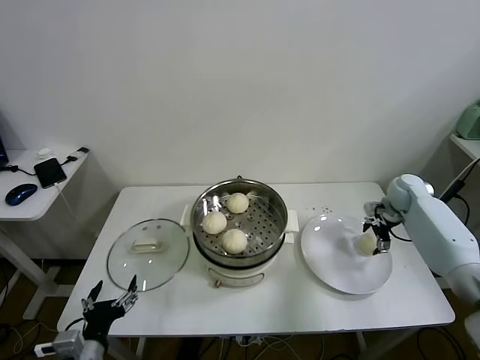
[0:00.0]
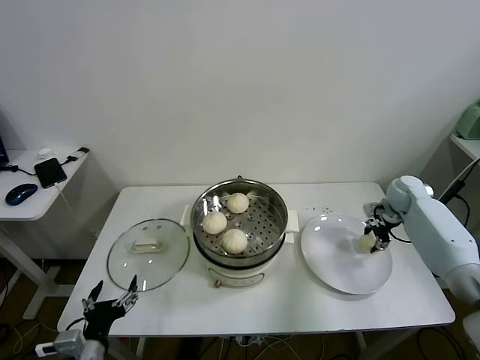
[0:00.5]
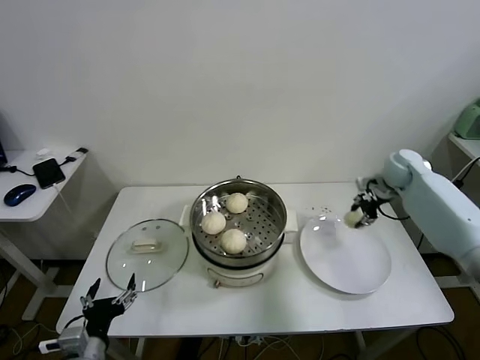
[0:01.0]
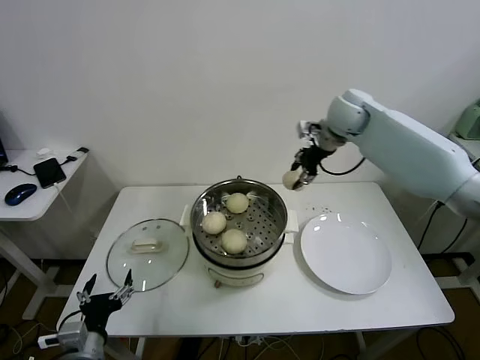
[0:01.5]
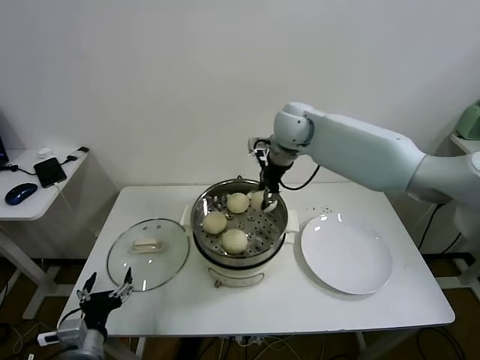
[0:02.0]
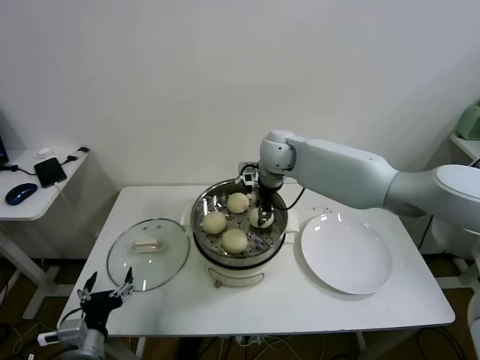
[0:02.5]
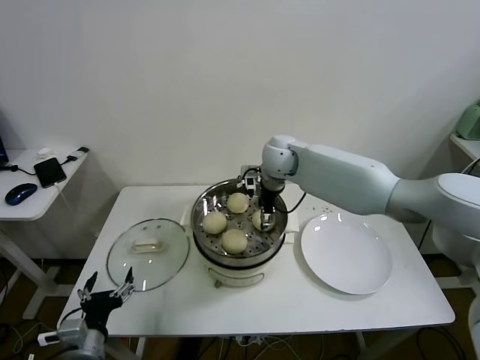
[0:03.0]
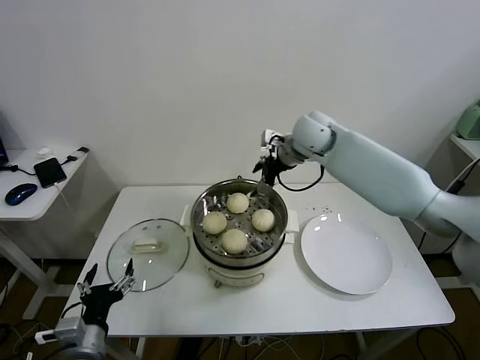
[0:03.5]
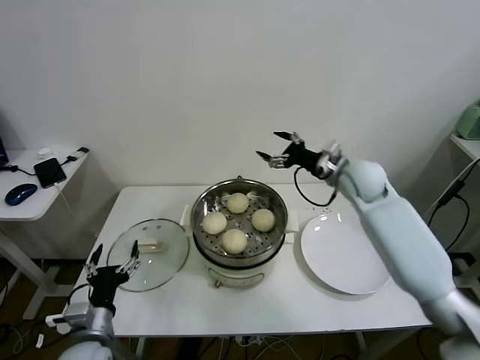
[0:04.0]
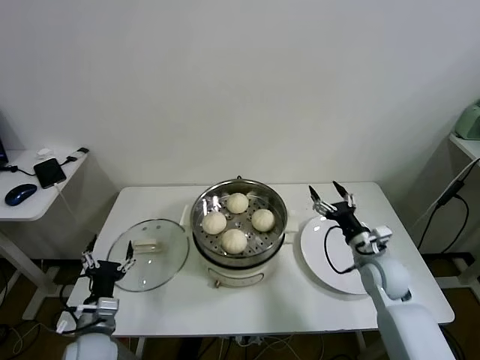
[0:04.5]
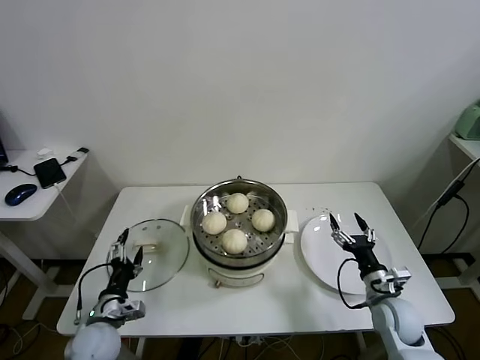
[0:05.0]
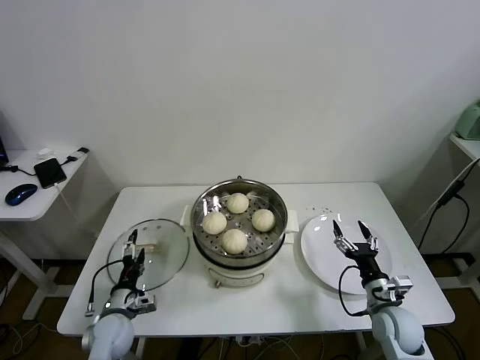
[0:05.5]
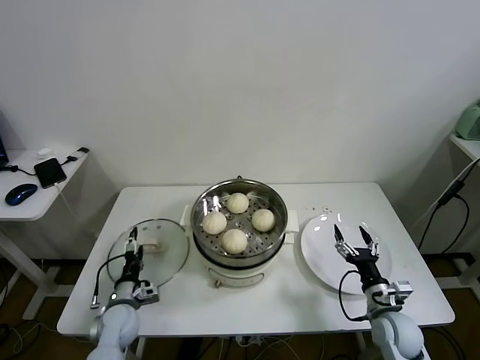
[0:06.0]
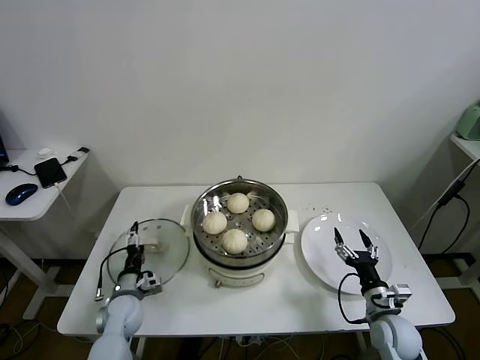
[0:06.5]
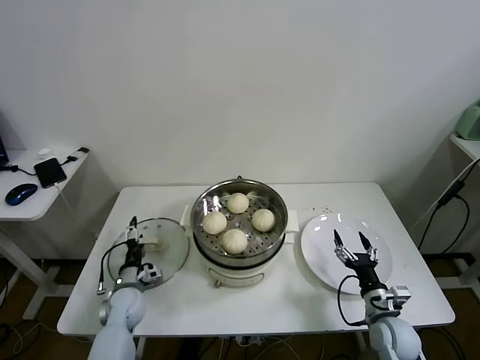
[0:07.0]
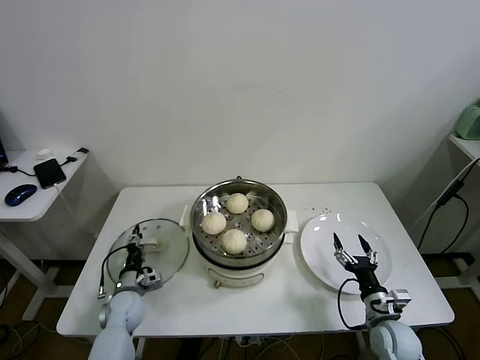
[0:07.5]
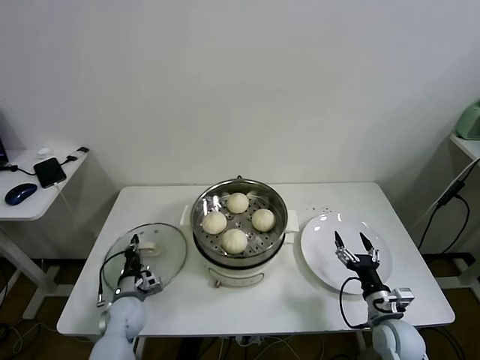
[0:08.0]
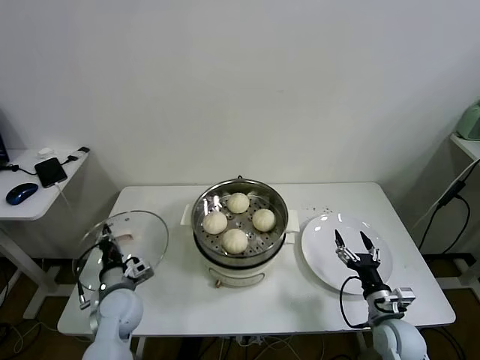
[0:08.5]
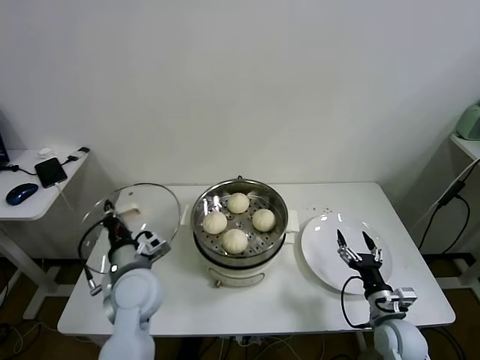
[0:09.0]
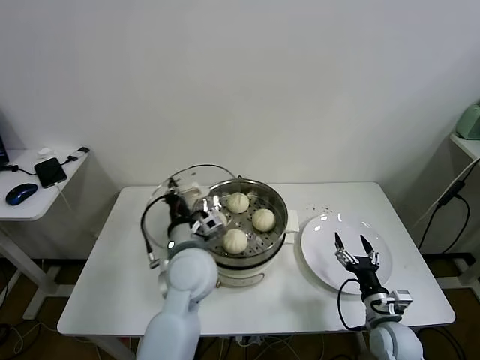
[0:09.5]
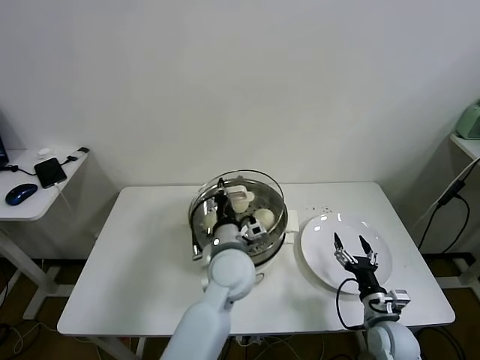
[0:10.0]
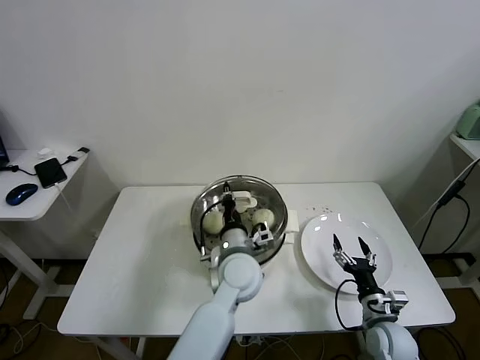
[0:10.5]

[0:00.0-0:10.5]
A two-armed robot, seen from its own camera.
Task of the whole recording: take steamed baozi put them in steamer.
Step, 0:00.5 to 0:03.0: Place the baozi on the steamer with right gripper.
Step, 0:03.5 to 0:07.5: Grasp the pot lid with left gripper.
0:00.0 to 0:02.0: The right gripper travels to the left and upward by roughly 40 cm, and closes.
0:02.0 to 0:04.0: The right gripper is displaced to the right, downward and backward by about 20 cm, and opens its fingers.
0:04.0 to 0:06.5: The right gripper travels downward and backward by about 35 cm; the left gripper heads forward and downward, covering approximately 20 cm.
0:06.5 to 0:08.5: The left gripper heads upward, covering about 5 cm, and closes.
0:08.5 to 0:10.5: The left gripper travels to the right and upward by roughly 30 cm.

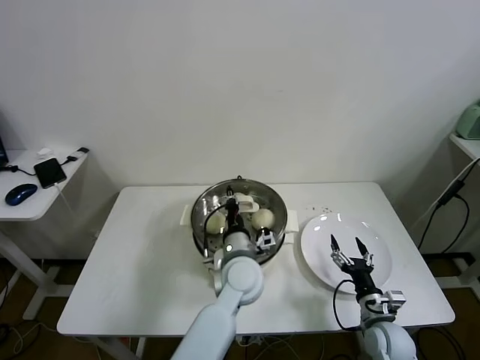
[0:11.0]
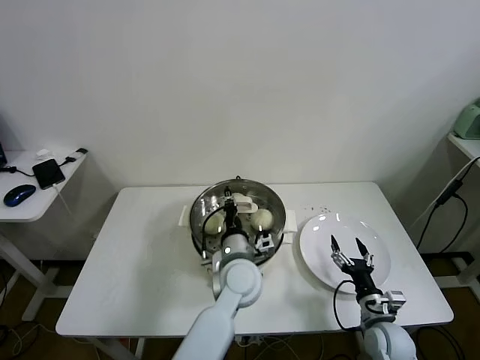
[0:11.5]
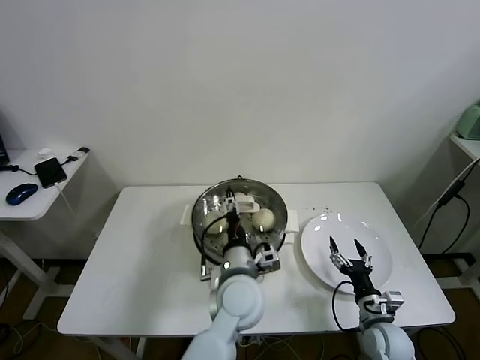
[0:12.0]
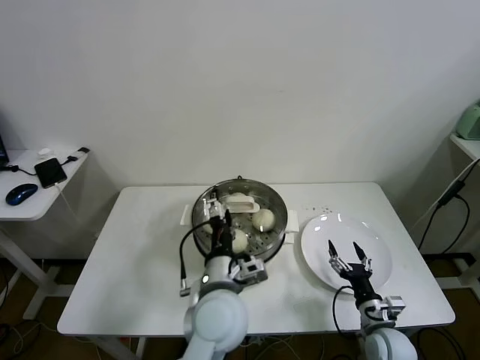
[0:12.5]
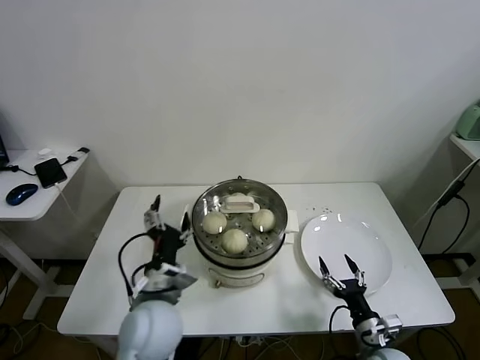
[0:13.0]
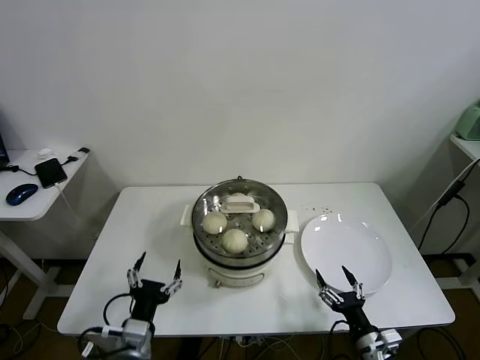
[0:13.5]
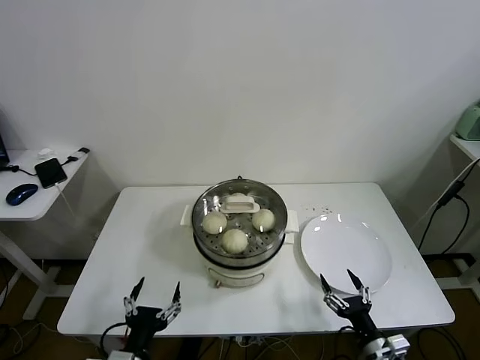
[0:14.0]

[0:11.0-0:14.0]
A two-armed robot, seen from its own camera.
Task of the whole recording: take steamed baozi put them in steamer.
0:11.0 to 0:12.5: The left gripper goes roughly 10 cm backward, and opens up.
0:12.5 to 0:14.0: The right gripper heads backward, covering roughly 10 cm; the left gripper goes about 25 cm to the left, backward and downward.
